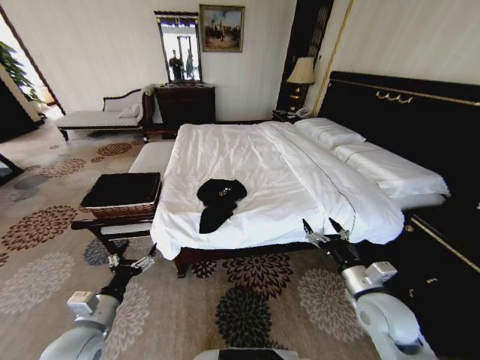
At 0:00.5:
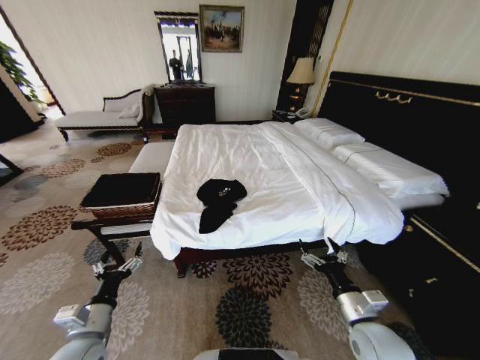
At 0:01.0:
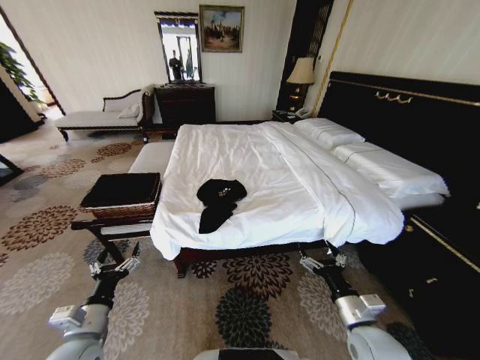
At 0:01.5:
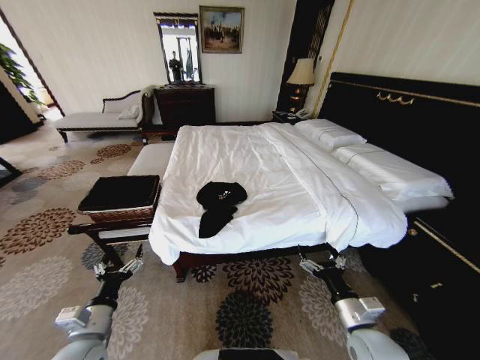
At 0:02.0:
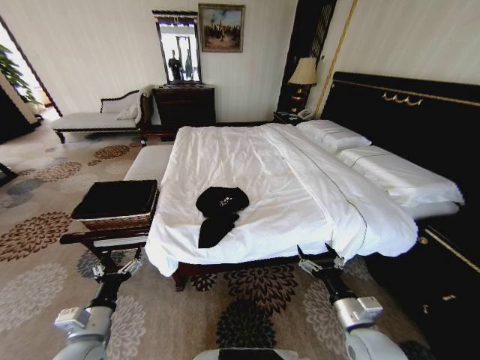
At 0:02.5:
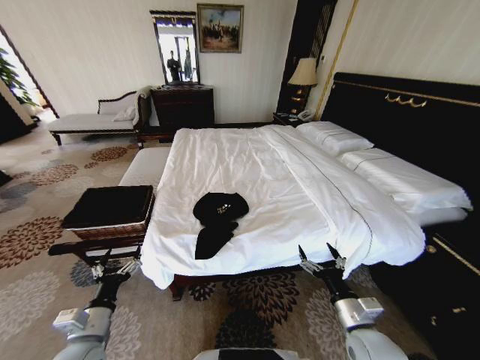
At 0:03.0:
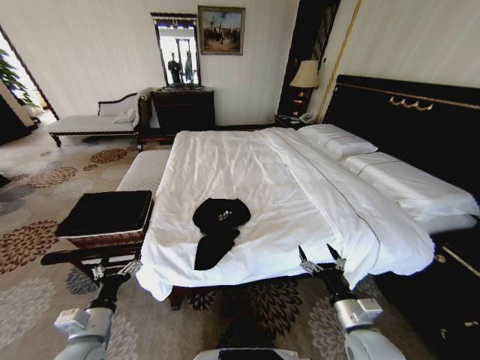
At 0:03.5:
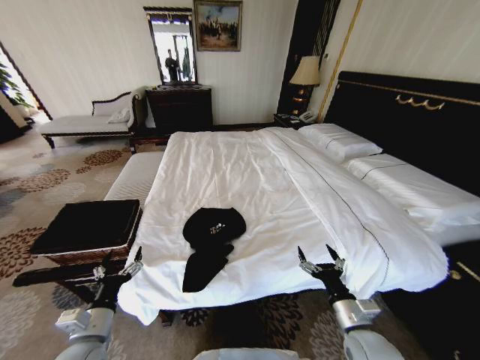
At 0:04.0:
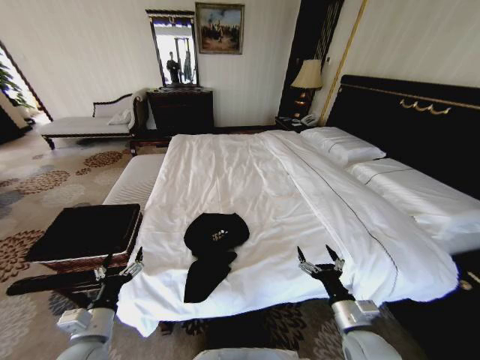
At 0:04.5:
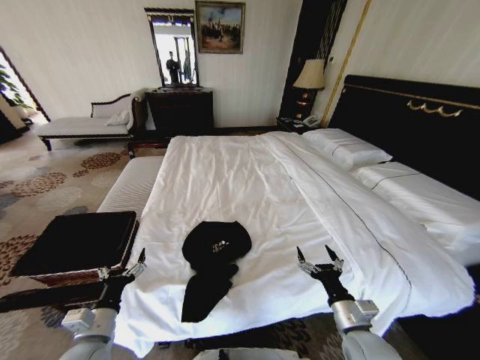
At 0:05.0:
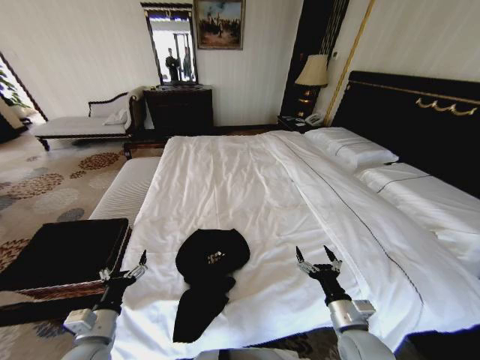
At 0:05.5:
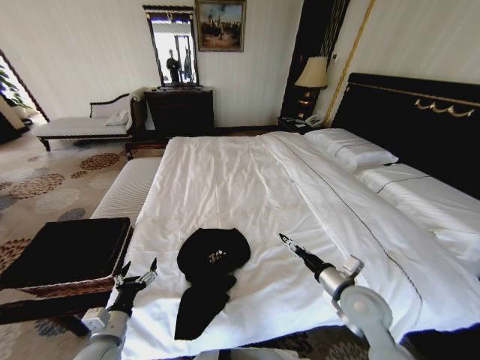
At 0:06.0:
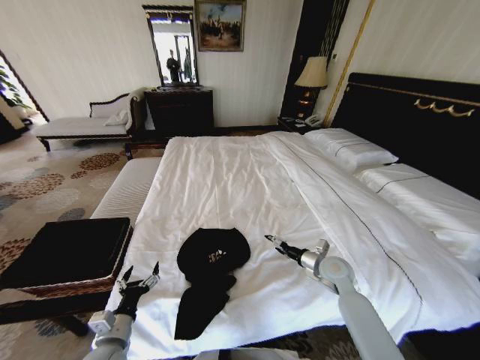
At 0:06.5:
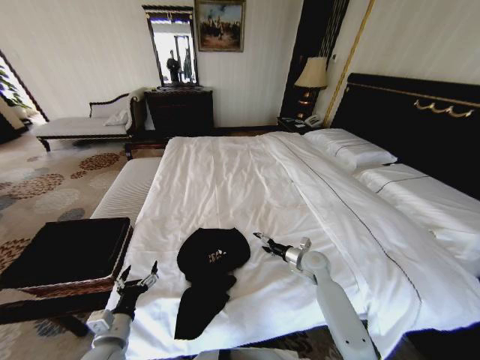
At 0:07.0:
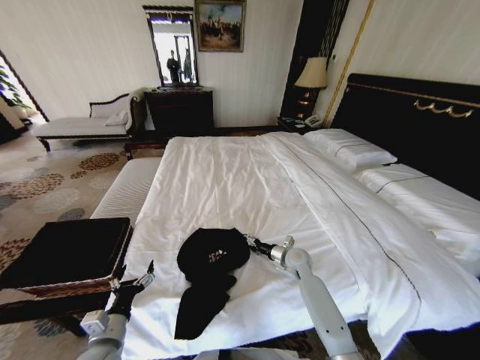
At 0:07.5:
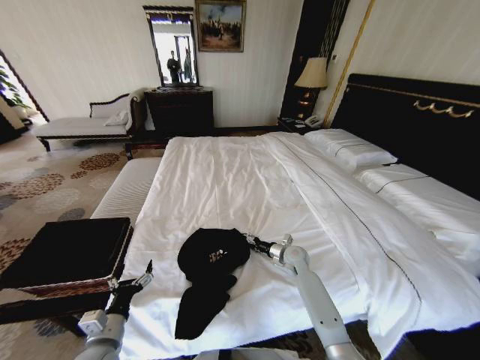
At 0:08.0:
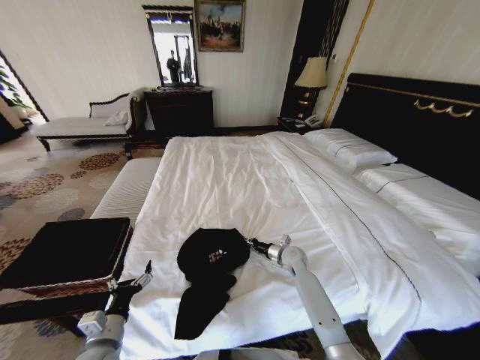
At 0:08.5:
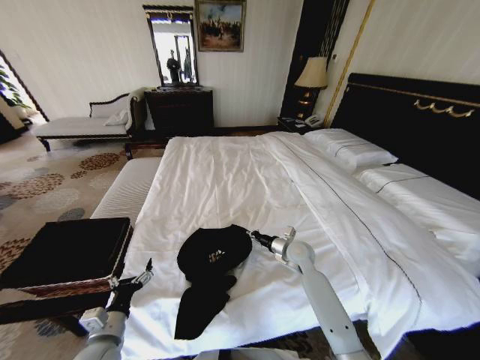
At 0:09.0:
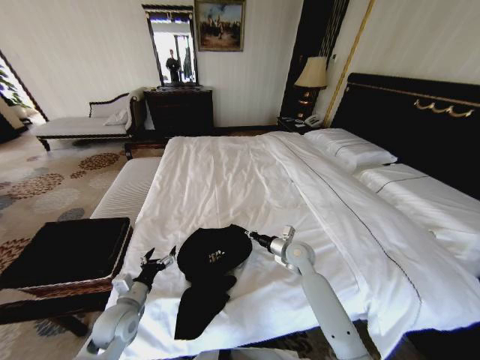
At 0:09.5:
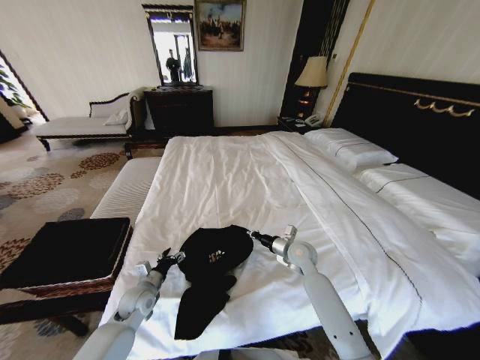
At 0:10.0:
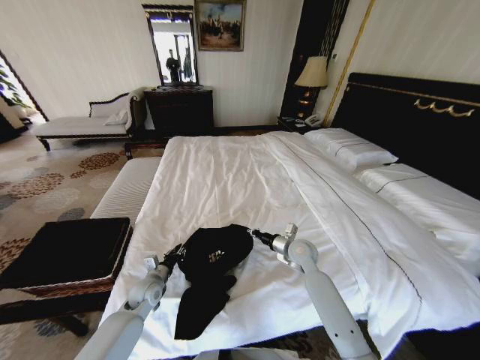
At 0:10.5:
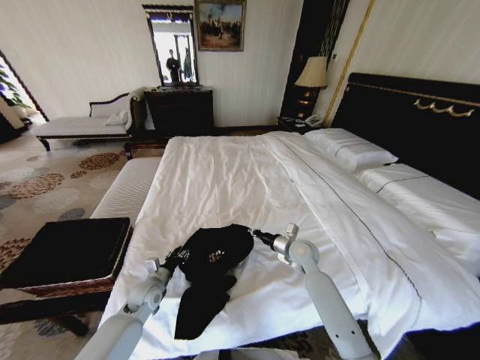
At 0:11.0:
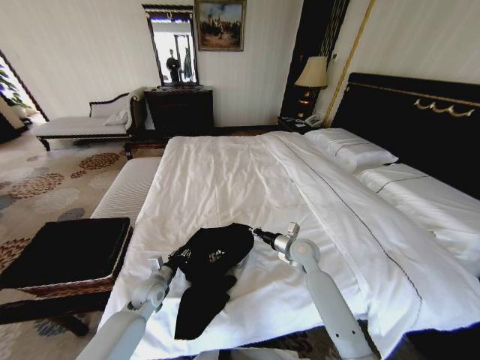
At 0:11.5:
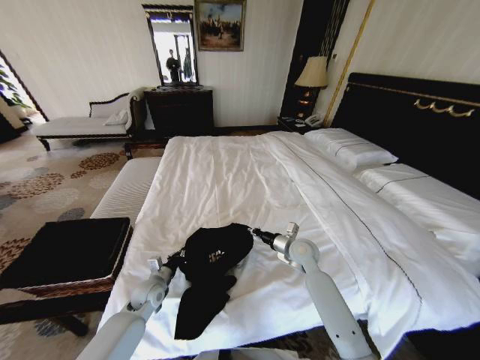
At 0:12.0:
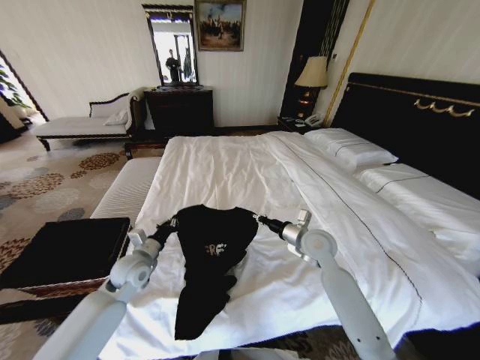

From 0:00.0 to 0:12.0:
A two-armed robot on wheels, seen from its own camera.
Task of the whole recording: Fold the clothes on the bed and place them into the basket.
From 0:04.0 to 0:06.0: The left gripper moves some 5 cm. Meanwhile the right gripper is displaced forward by roughly 20 cm.
From 0:06.0 to 0:08.0: The right gripper shifts approximately 15 cm to the left, forward and downward, and closes up.
From 0:08.0 to 0:10.0: The right gripper goes about 10 cm upward; the left gripper shifts approximately 20 cm forward, and closes up.
From 0:10.0 to 0:12.0: Both grippers travel together upward, about 10 cm.

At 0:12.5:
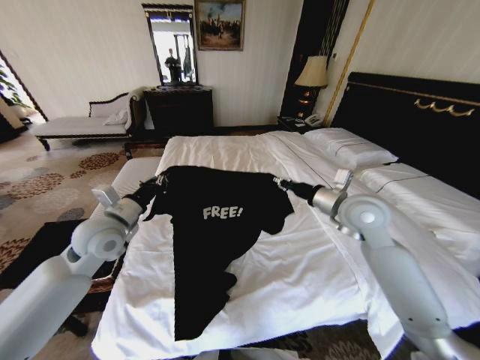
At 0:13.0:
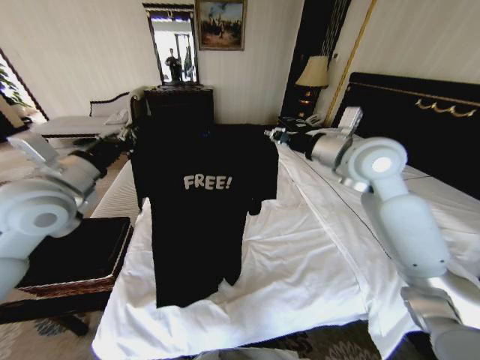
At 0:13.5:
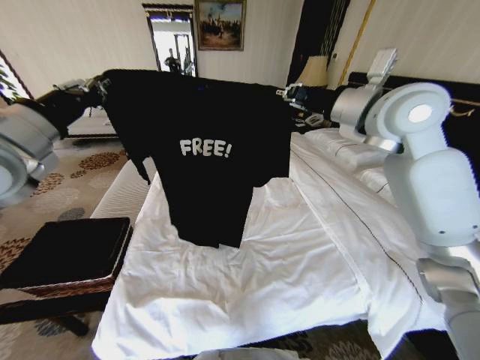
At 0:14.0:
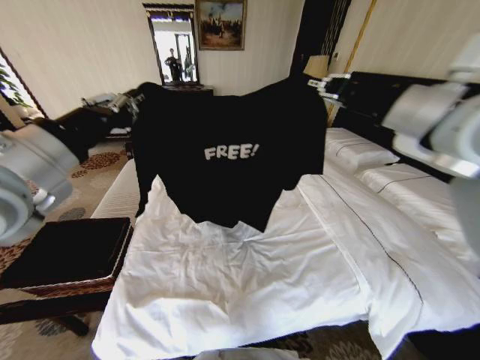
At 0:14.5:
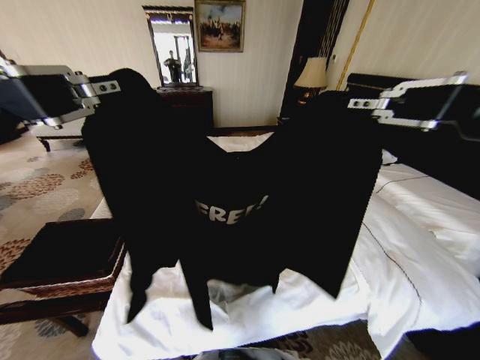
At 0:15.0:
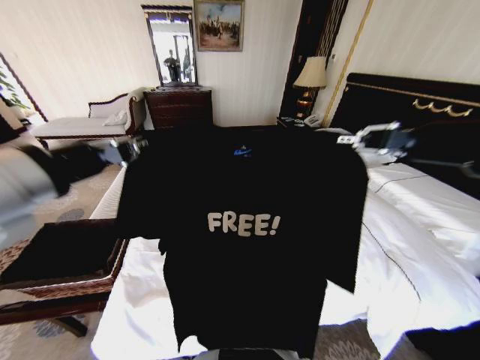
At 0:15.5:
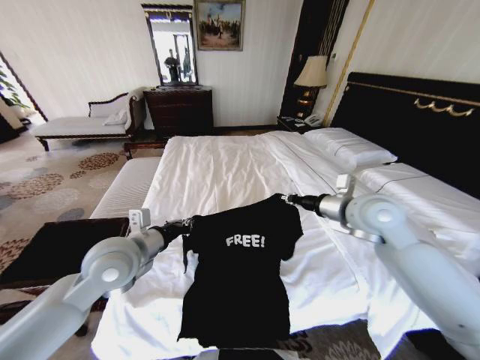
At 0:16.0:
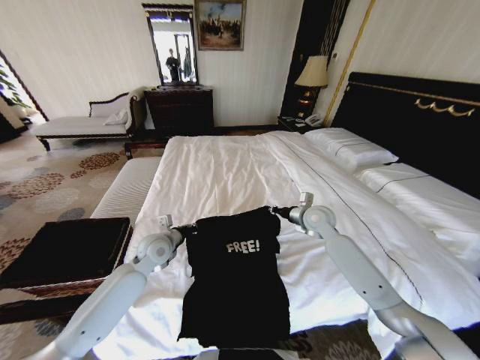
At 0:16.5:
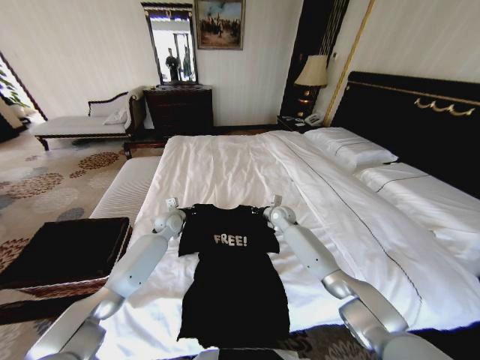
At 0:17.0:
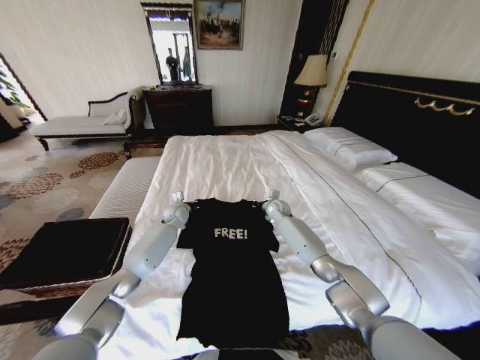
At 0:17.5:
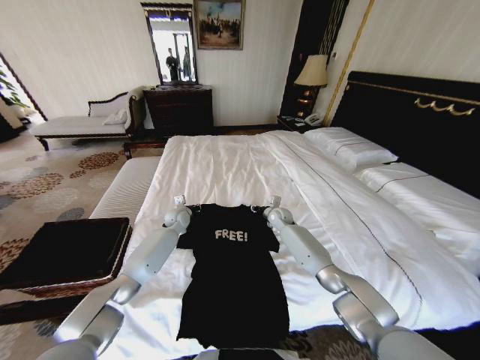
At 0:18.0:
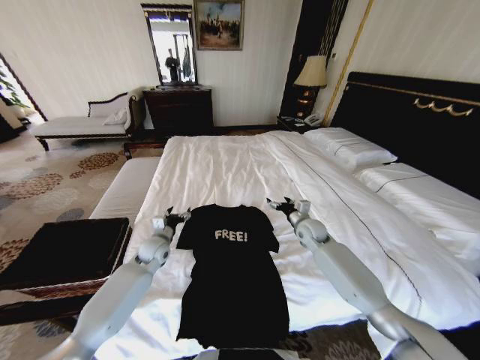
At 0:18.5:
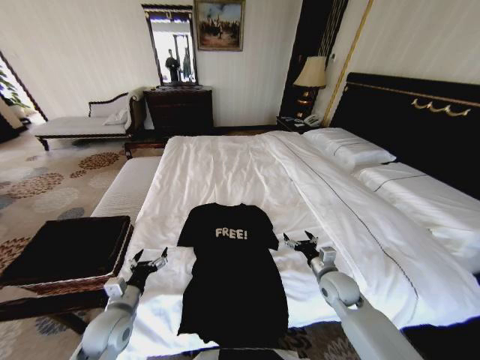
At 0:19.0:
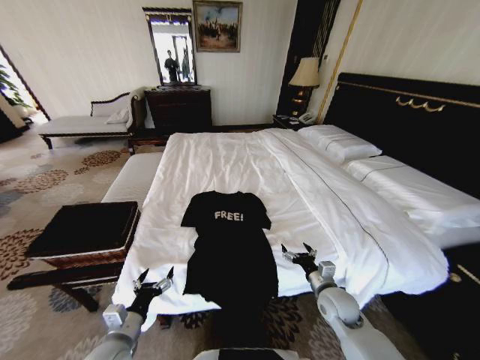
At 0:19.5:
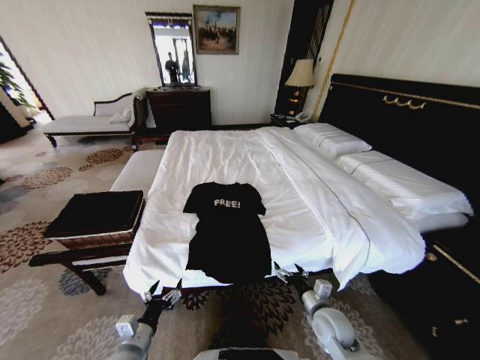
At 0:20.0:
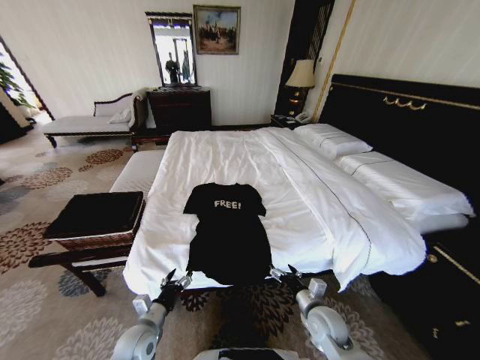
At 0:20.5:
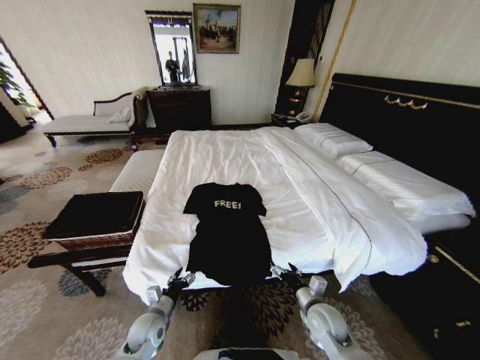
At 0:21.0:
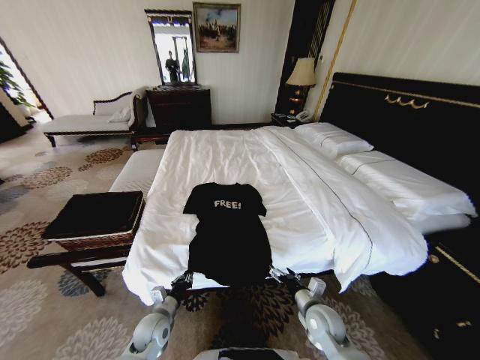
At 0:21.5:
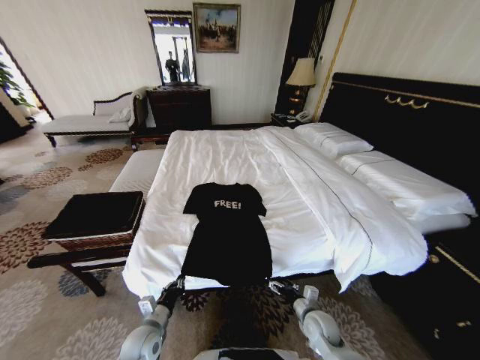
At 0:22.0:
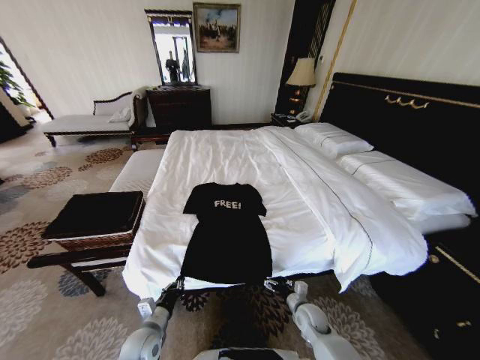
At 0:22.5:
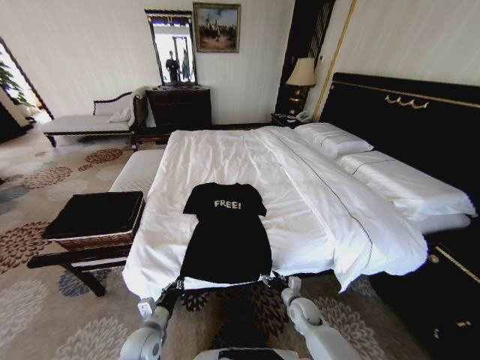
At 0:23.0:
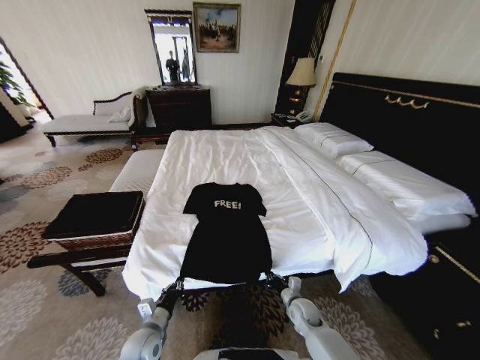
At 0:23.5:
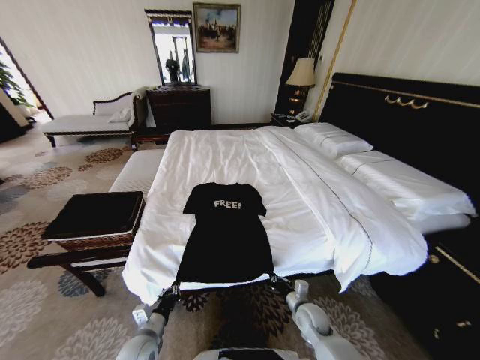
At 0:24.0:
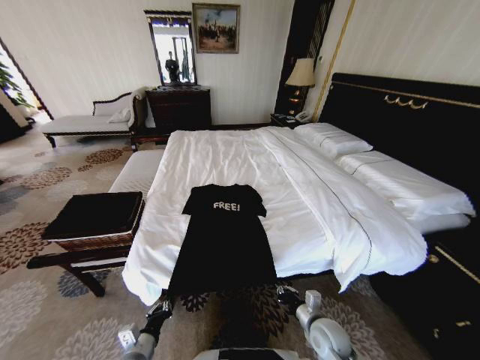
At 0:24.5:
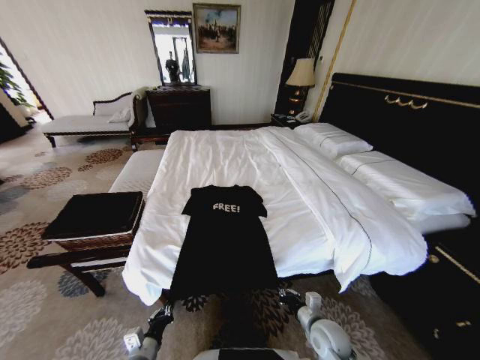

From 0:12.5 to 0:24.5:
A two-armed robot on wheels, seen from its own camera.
Task of the whole recording: Fold the clothes on the bed and place them into the basket.
From 0:12.5 to 0:14.5: Both grippers move upward and backward, approximately 35 cm.
From 0:14.5 to 0:16.5: The grippers both shift downward and forward by approximately 60 cm.
From 0:16.5 to 0:18.5: The left gripper moves backward, approximately 30 cm, and opens its fingers, while the right gripper goes approximately 25 cm backward and to the right, and opens.
From 0:18.5 to 0:20.5: The right gripper shifts approximately 10 cm backward and to the left. The left gripper is displaced downward and to the right by some 10 cm.
From 0:20.5 to 0:22.5: The left gripper closes up, while the right gripper goes about 10 cm downward.
From 0:22.5 to 0:24.5: The right gripper is displaced upward and backward by roughly 10 cm, and closes, while the left gripper shifts some 5 cm backward.

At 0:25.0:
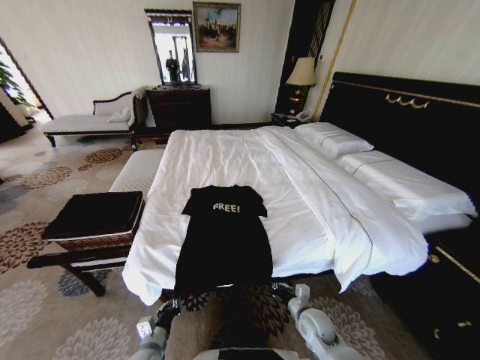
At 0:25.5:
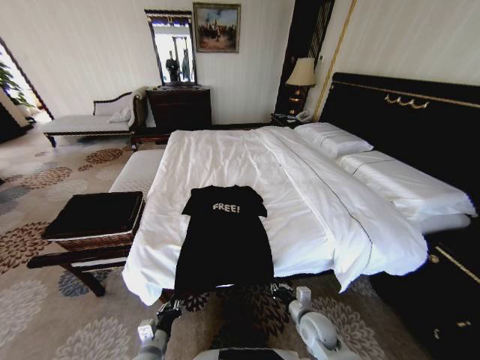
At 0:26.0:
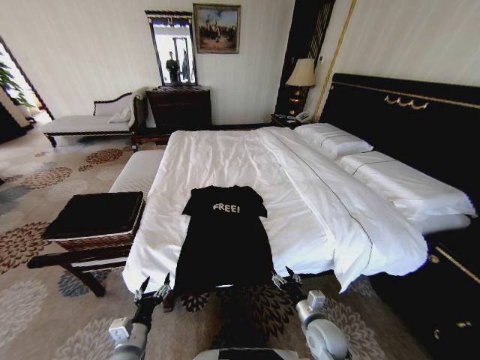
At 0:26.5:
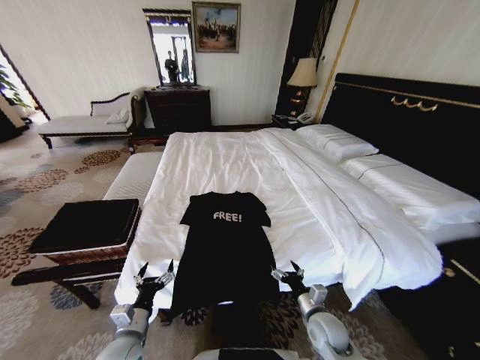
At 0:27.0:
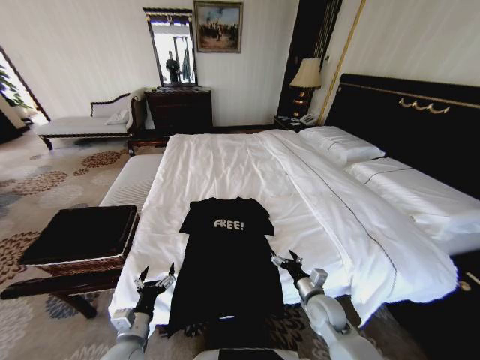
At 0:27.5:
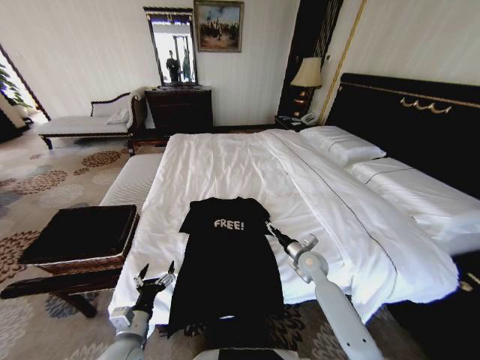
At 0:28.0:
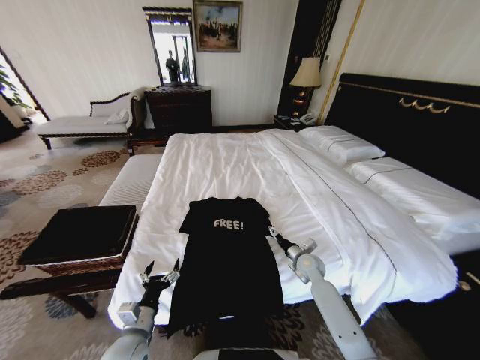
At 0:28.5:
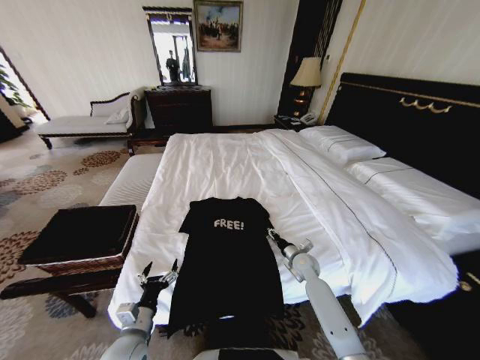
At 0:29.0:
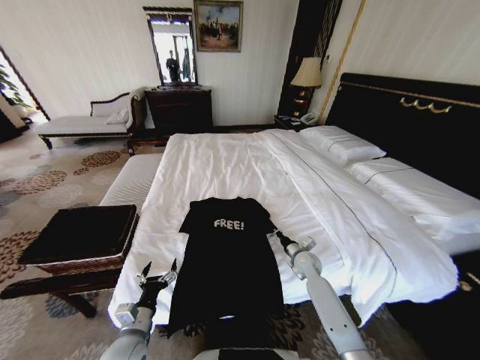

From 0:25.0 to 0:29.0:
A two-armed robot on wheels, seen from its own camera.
Task of the whole recording: Fold the clothes on the bed and place them into the basket.
From 0:25.0 to 0:27.0: Both grippers travel together upward, some 10 cm. The right gripper opens its fingers. The left gripper opens.
From 0:27.0 to 0:29.0: The right gripper travels forward by roughly 15 cm, and closes.
